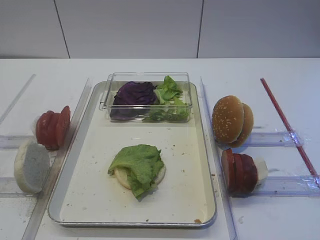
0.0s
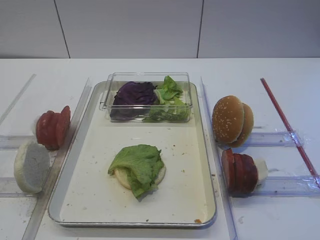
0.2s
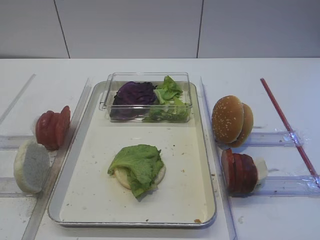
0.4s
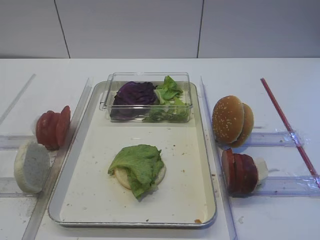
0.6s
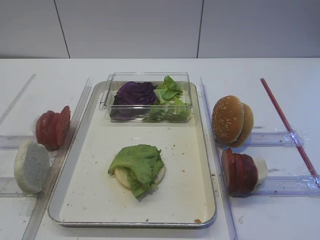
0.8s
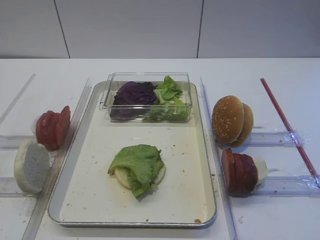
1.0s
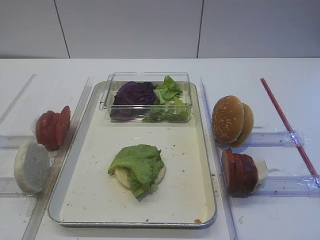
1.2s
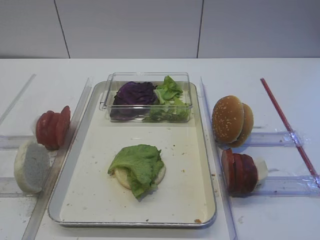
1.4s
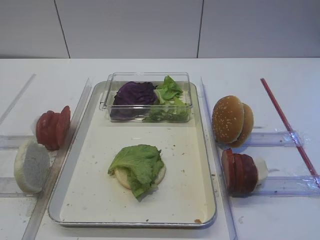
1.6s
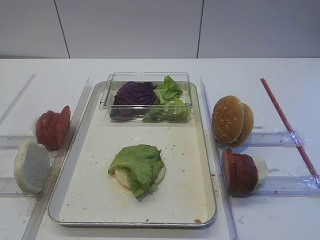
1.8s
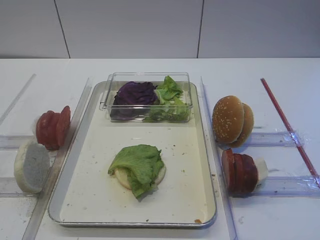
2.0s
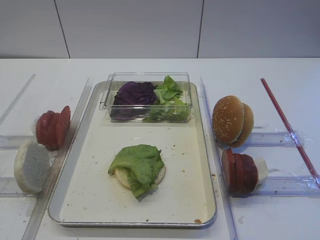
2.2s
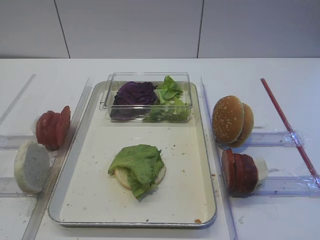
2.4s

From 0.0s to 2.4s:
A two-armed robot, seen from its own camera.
From 0.0s to 2.4s: Both grippers stay about where they are.

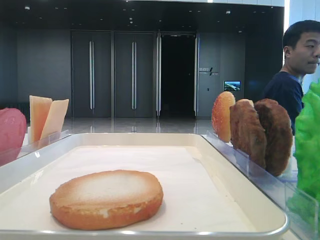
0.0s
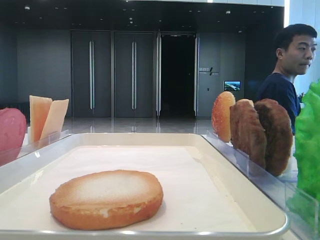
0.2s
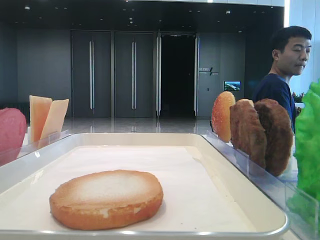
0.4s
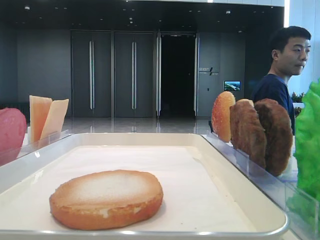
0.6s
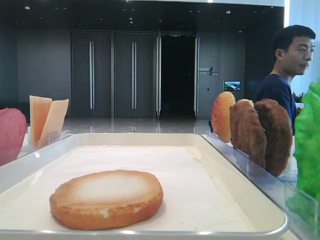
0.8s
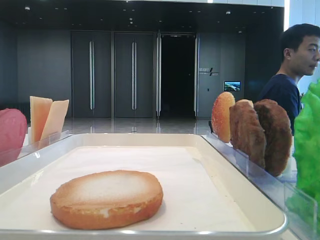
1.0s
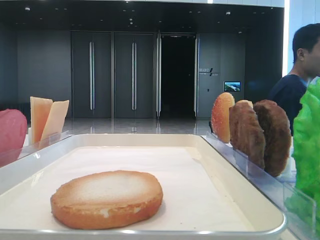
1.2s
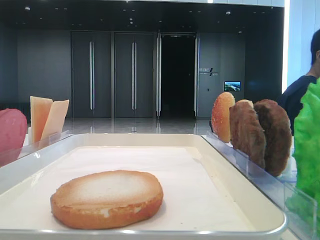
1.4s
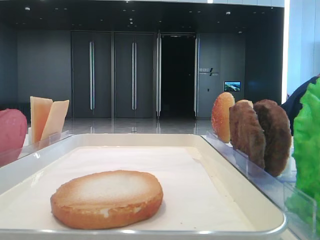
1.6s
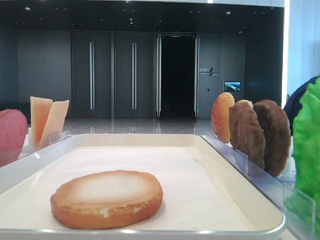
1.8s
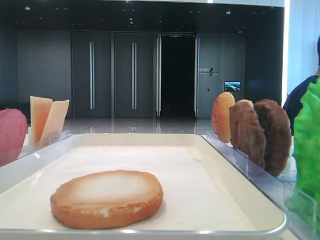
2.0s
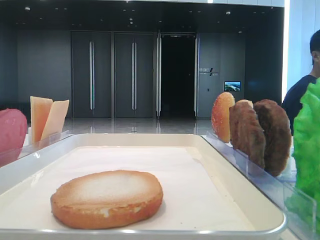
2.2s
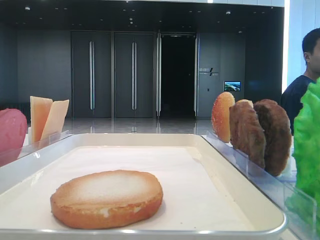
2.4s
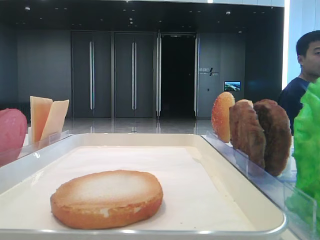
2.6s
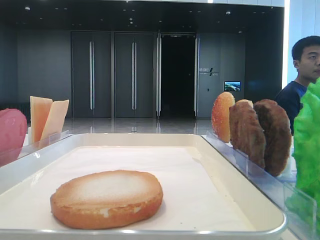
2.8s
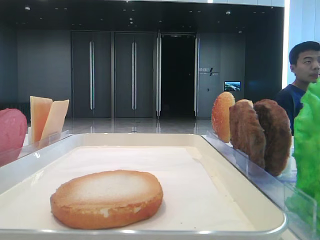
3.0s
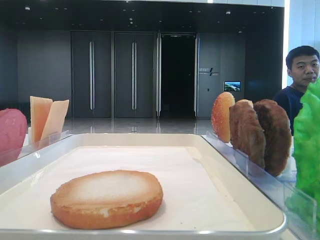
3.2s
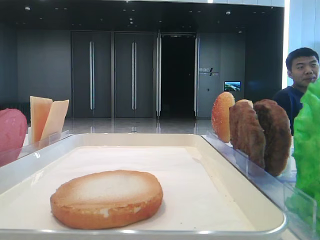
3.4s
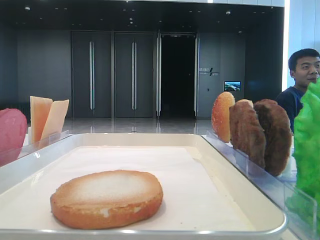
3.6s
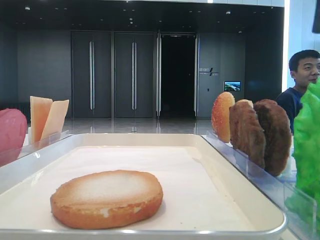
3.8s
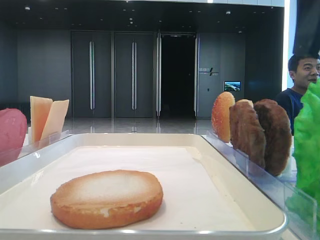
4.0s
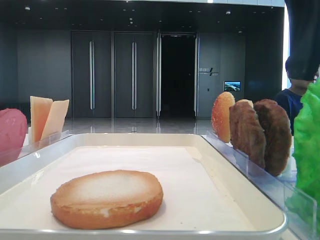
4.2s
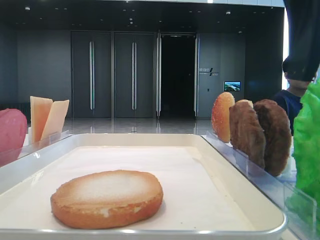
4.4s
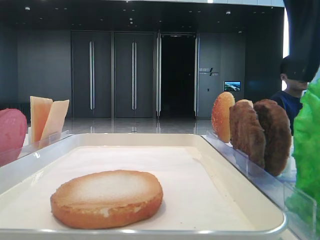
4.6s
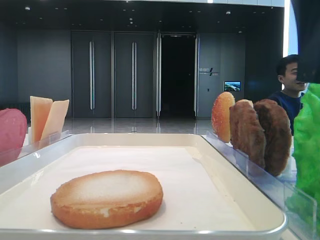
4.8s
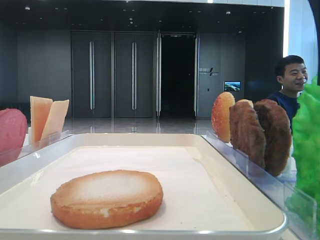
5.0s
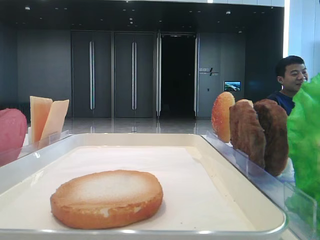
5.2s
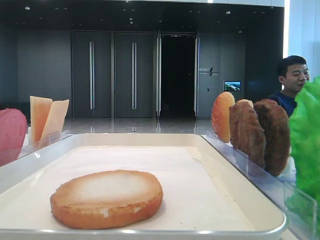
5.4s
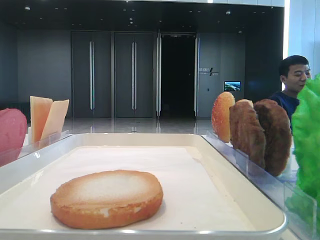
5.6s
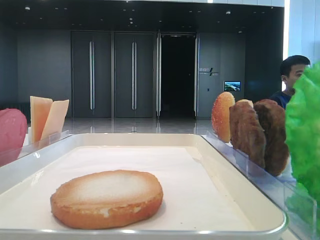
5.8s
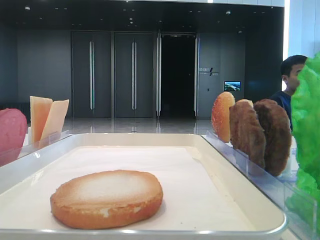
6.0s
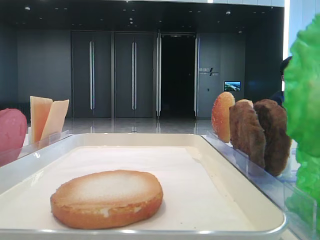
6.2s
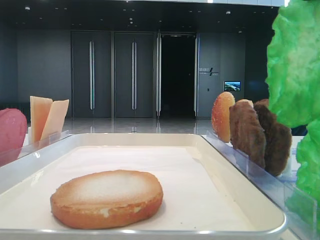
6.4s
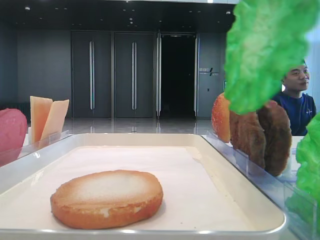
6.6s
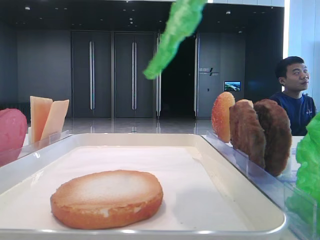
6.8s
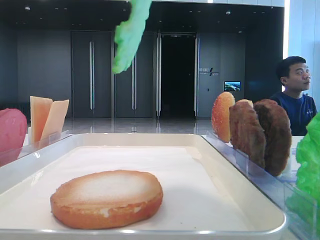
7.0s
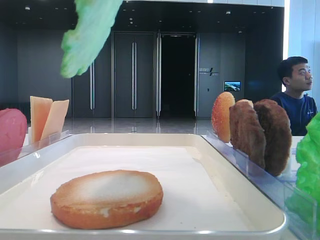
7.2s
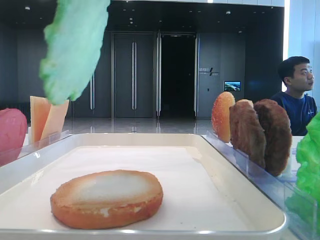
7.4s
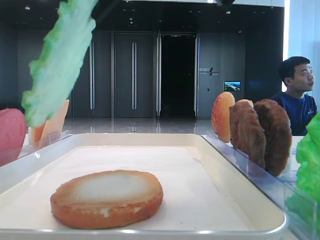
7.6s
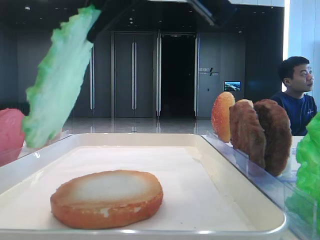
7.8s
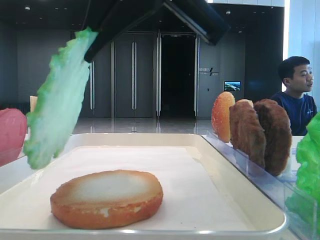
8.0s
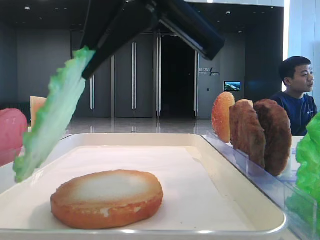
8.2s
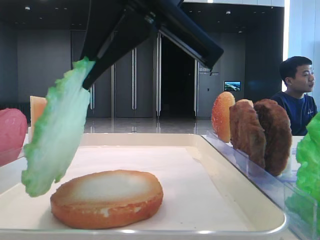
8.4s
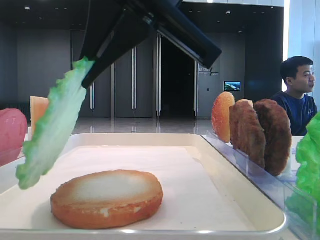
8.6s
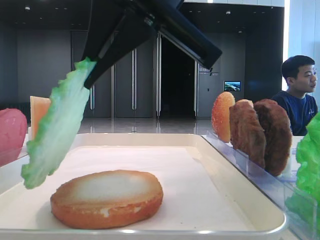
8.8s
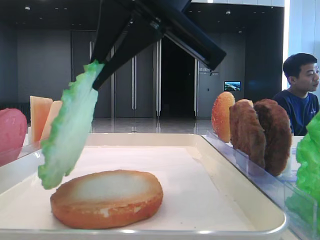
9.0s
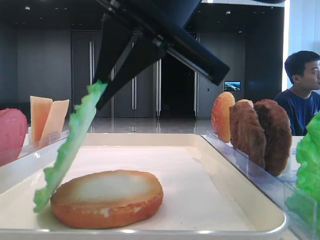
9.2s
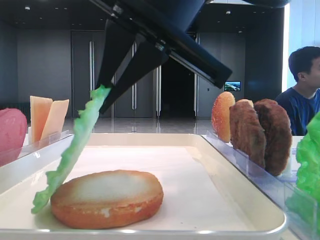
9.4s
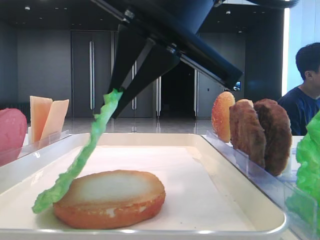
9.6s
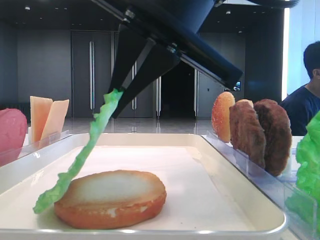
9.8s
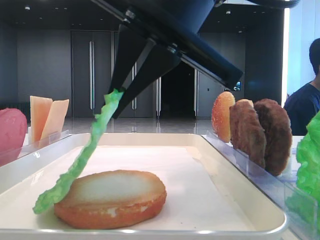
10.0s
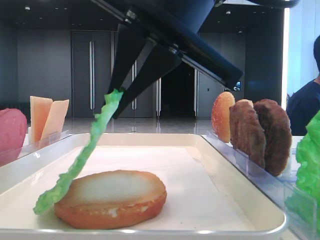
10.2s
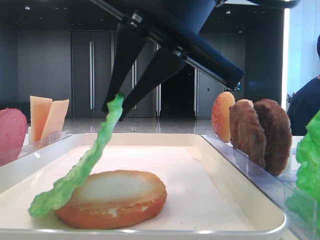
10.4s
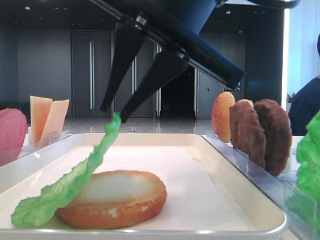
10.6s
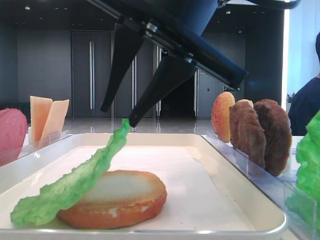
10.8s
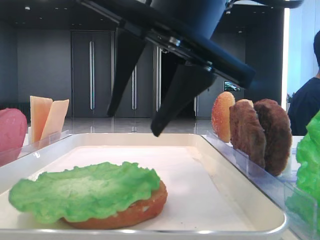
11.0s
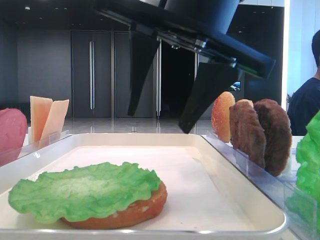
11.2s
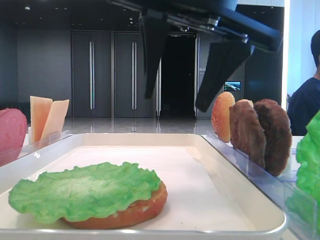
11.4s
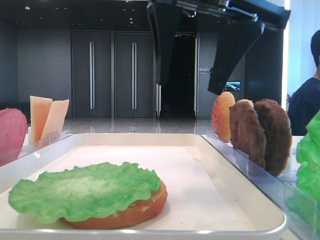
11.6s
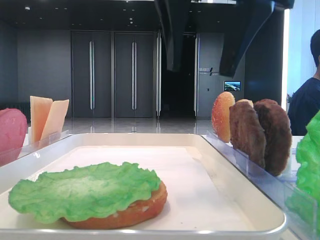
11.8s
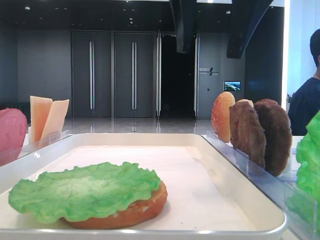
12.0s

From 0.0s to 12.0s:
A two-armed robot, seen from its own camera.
Step, from 0.0s to 5.4s: Grab the lettuce leaf with the right hand.
Step, from 5.6s to 10.8s: Place the lettuce leaf on the bottom bread with the right hand.
From 1.6s to 3.0s: The right gripper goes about 10 cm forward.
From 3.0s to 4.4s: The right gripper travels to the left and downward by about 10 cm.
From 4.4s to 6.0s: The right gripper closes its fingers.
From 6.0s to 7.6s: The right gripper moves to the left, about 10 cm.
From 7.6s to 9.0s: The right gripper shifts by approximately 5 cm.
From 9.0s to 10.4s: The grippers make only small movements.
From 10.4s to 12.0s: The right gripper is displaced upward by approximately 5 cm, and opens up.

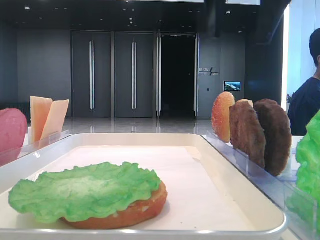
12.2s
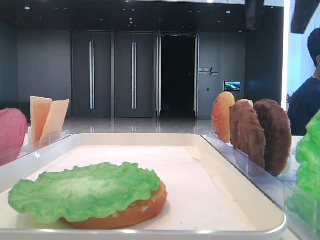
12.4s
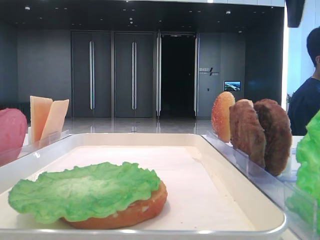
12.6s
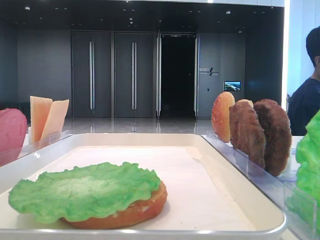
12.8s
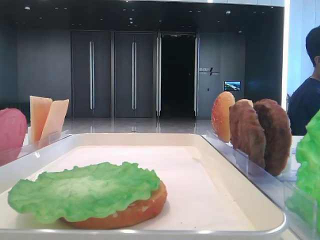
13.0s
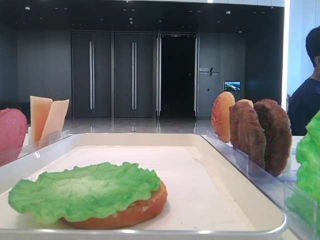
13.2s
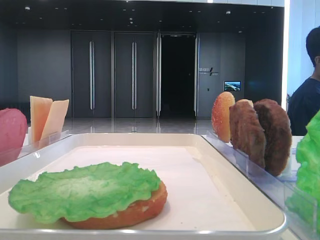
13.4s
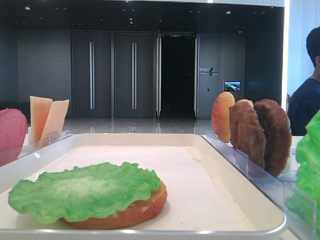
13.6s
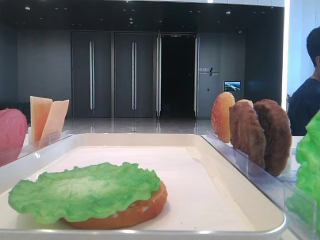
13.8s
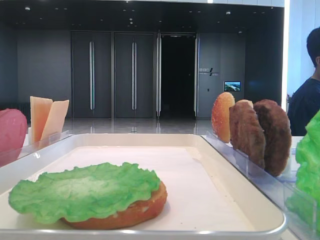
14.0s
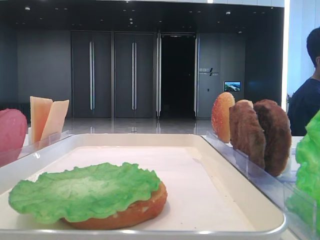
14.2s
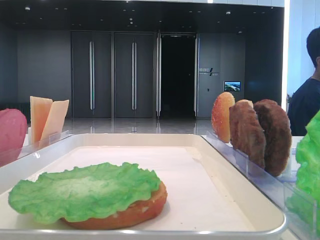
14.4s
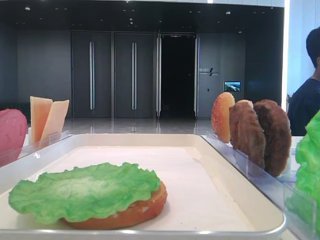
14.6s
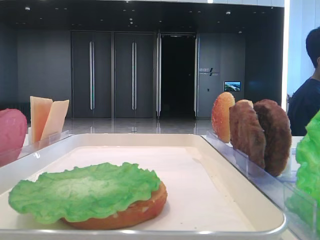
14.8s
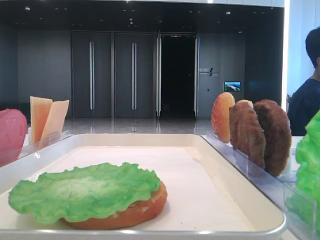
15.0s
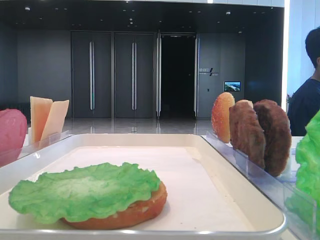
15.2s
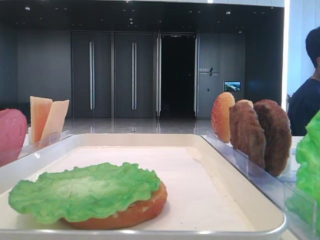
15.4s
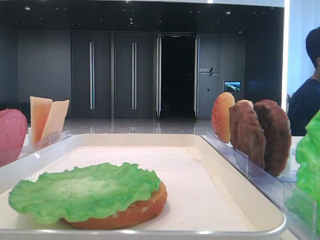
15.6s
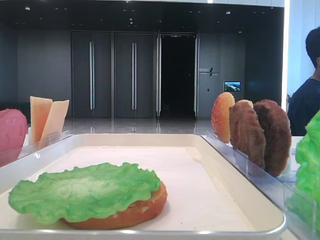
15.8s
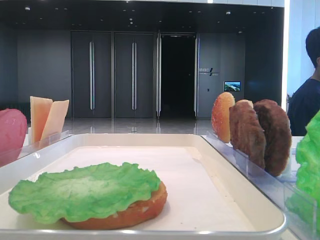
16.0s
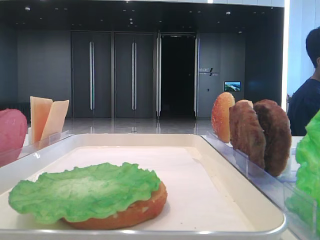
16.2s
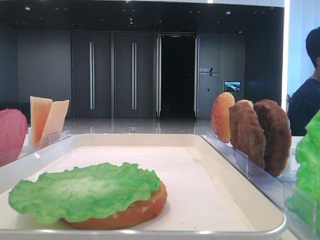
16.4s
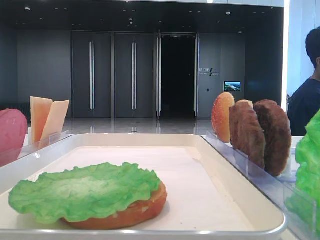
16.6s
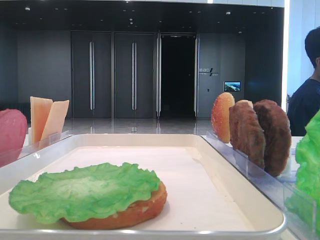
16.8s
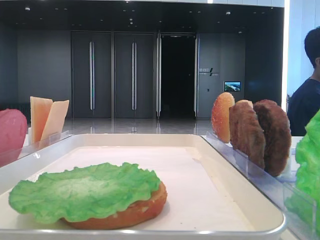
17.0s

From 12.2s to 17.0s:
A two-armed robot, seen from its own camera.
From 12.2s to 13.8s: The right gripper is displaced to the right and backward by about 25 cm.
From 15.4s to 17.0s: Neither gripper changes place.

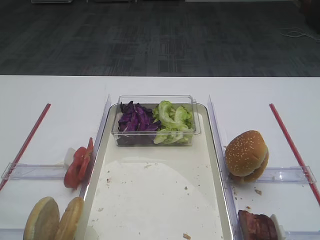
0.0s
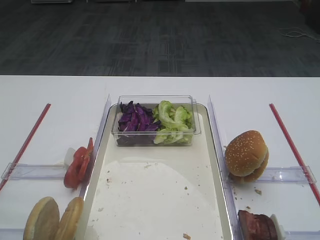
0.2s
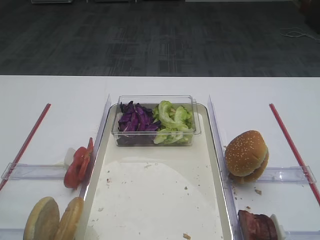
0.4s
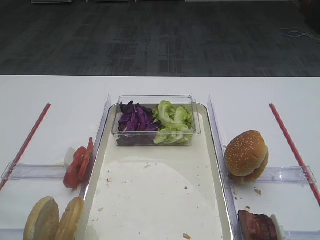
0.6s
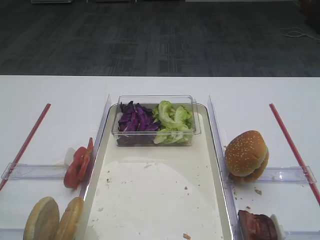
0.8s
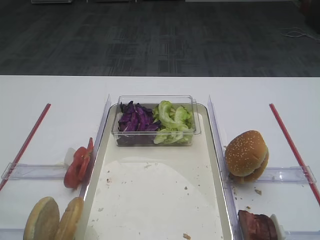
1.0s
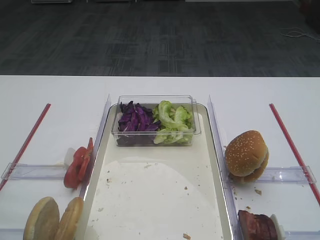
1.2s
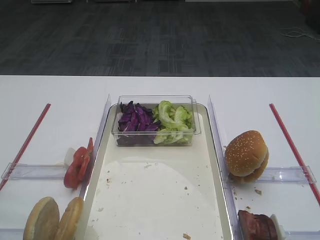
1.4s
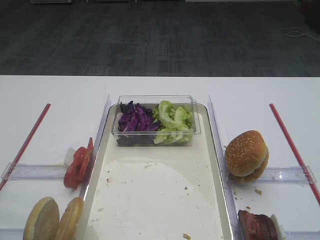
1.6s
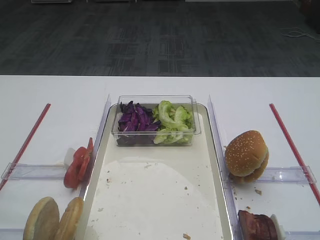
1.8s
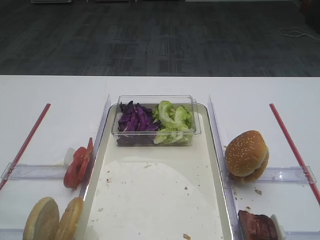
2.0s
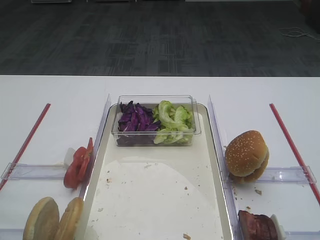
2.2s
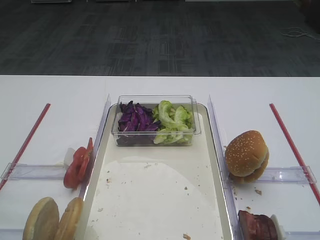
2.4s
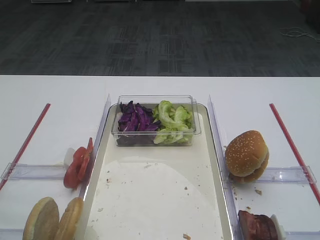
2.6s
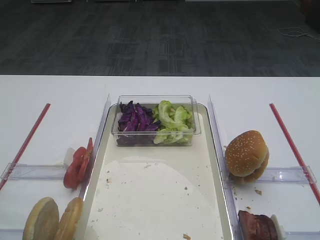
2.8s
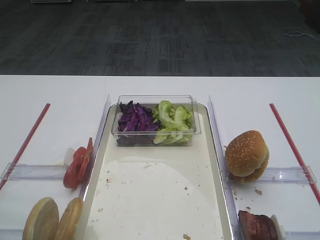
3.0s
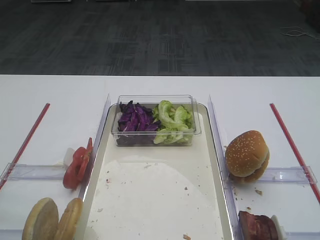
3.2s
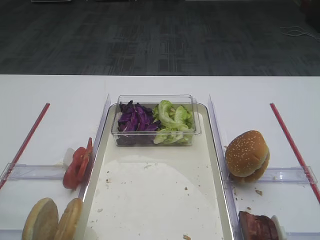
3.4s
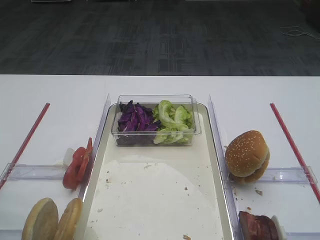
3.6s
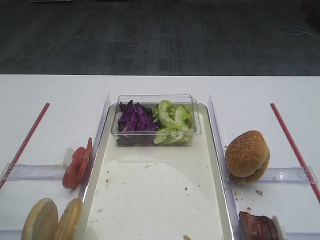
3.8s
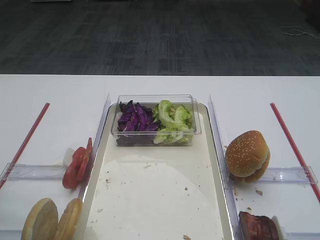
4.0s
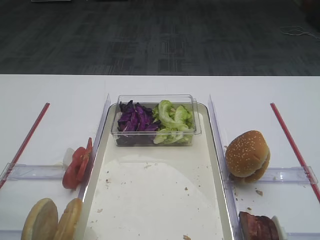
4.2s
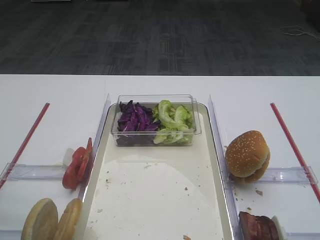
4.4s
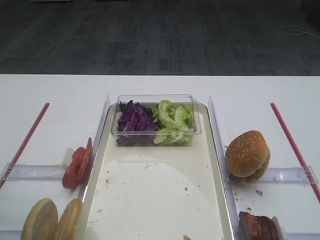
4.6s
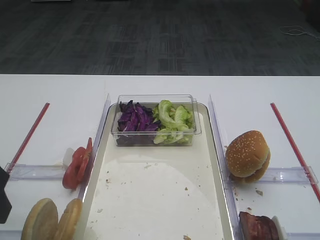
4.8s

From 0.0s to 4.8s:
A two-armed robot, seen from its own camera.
From 1.6s to 3.2s: The left gripper heads forward, covering approximately 10 cm.
From 3.2s to 4.8s: The left gripper heads to the right and forward, covering some 10 cm.
